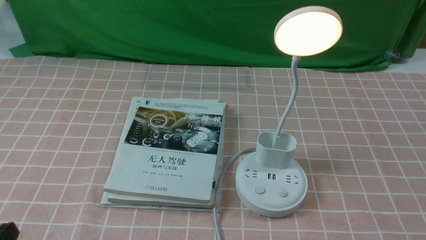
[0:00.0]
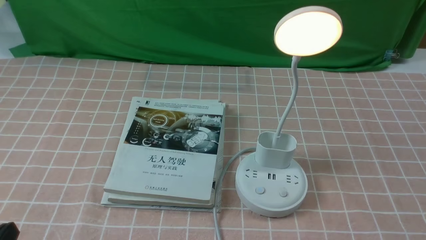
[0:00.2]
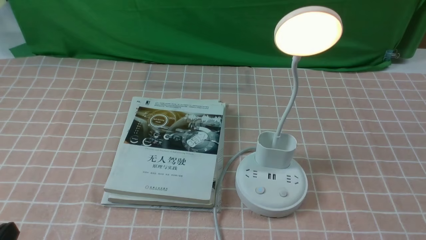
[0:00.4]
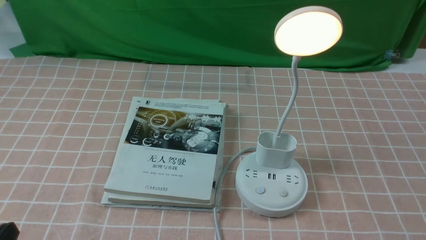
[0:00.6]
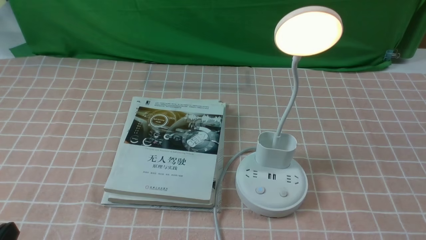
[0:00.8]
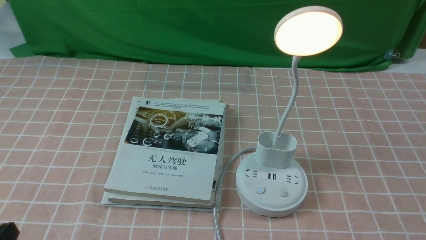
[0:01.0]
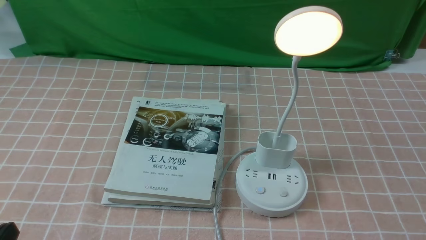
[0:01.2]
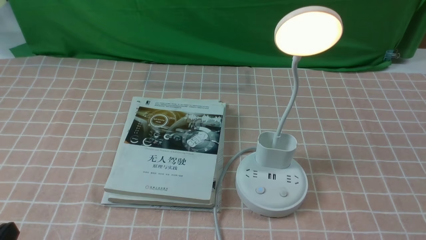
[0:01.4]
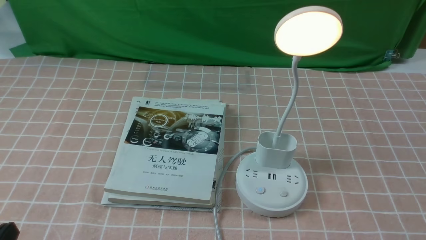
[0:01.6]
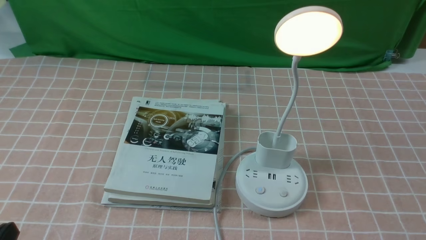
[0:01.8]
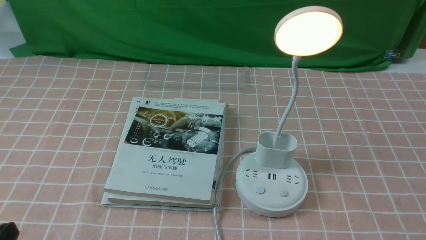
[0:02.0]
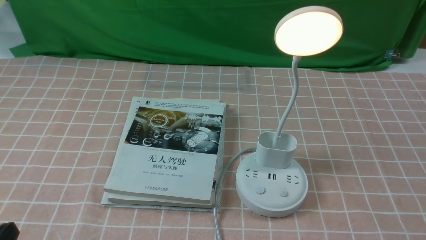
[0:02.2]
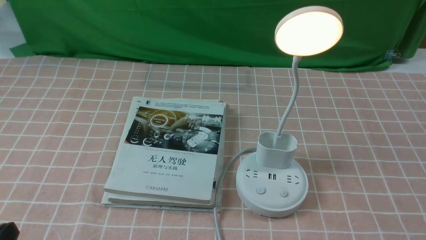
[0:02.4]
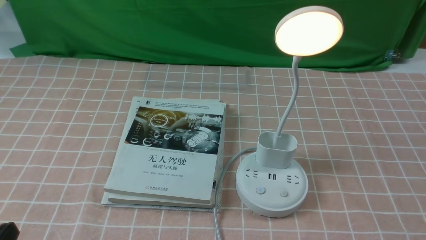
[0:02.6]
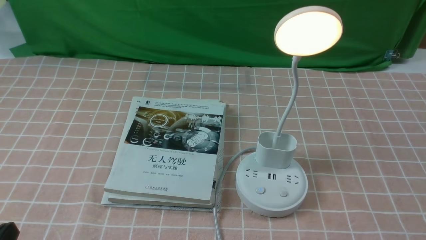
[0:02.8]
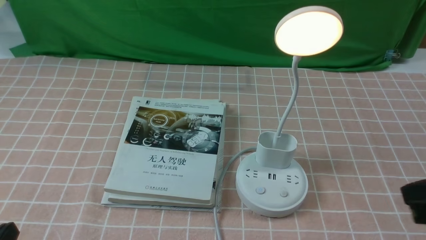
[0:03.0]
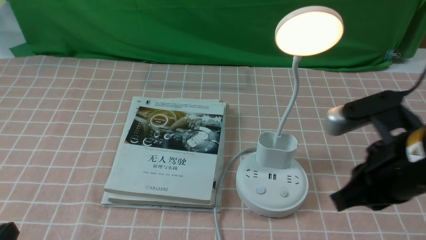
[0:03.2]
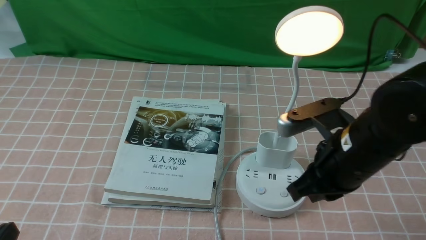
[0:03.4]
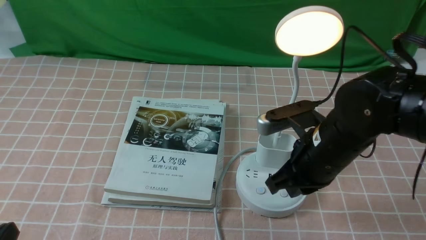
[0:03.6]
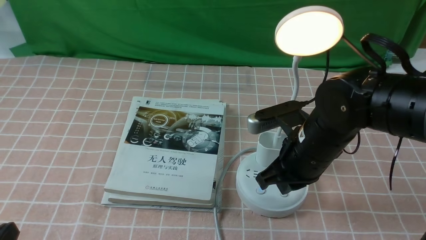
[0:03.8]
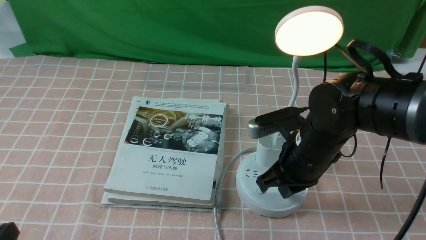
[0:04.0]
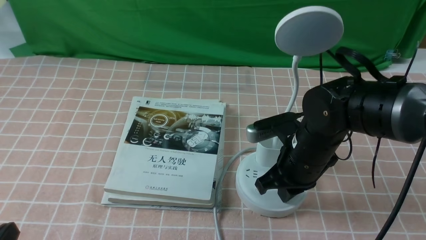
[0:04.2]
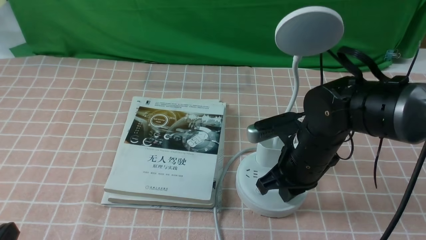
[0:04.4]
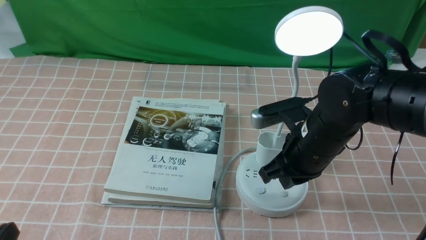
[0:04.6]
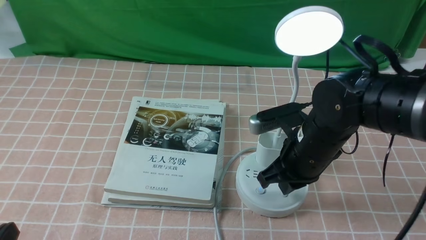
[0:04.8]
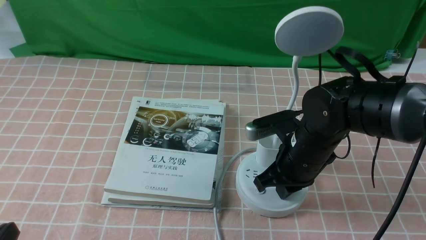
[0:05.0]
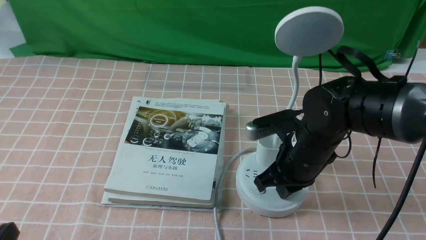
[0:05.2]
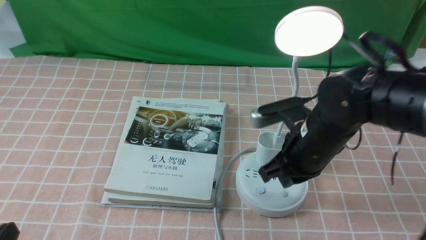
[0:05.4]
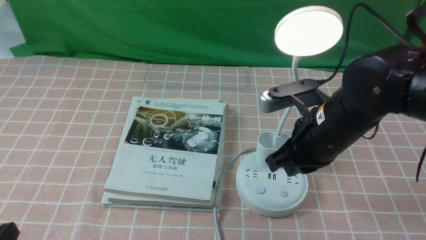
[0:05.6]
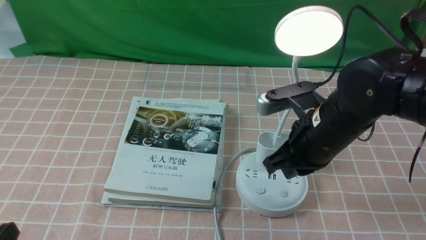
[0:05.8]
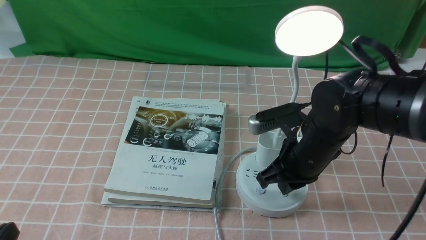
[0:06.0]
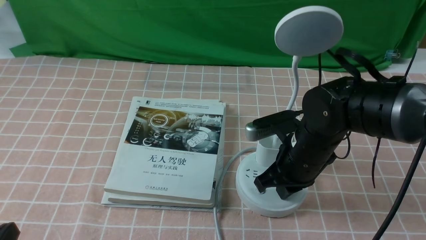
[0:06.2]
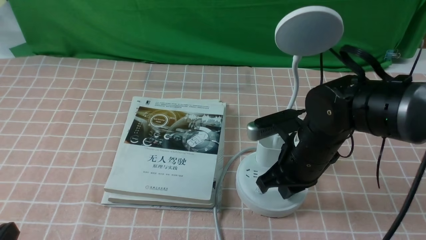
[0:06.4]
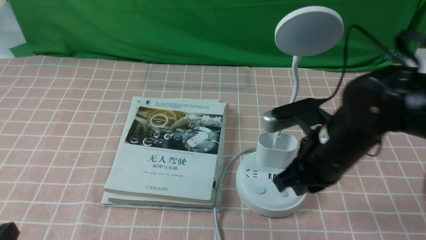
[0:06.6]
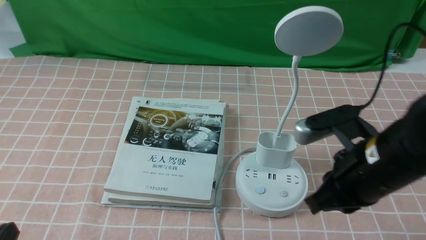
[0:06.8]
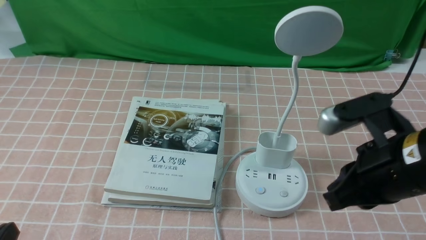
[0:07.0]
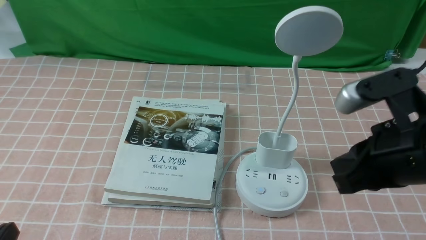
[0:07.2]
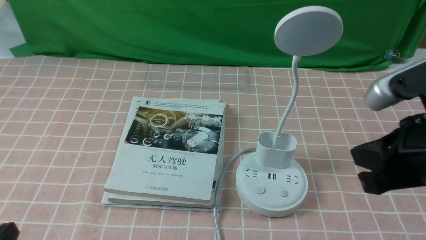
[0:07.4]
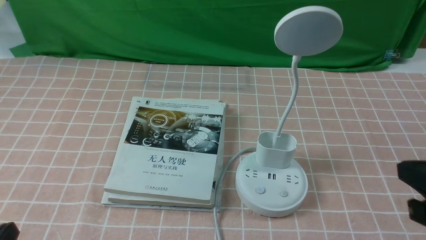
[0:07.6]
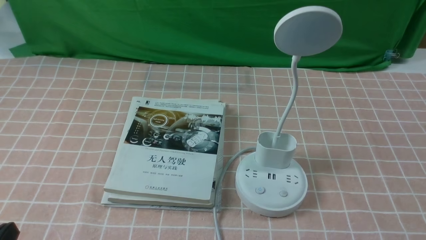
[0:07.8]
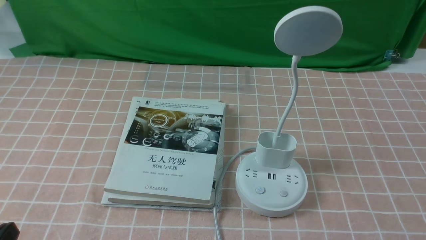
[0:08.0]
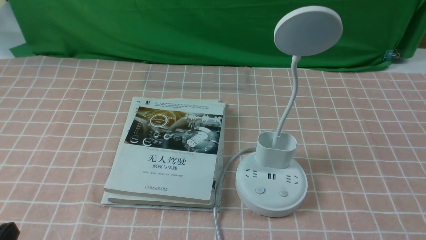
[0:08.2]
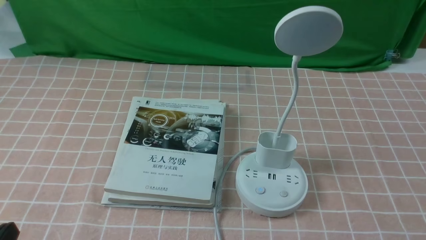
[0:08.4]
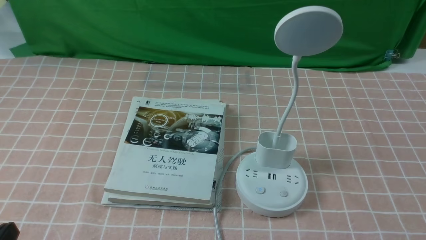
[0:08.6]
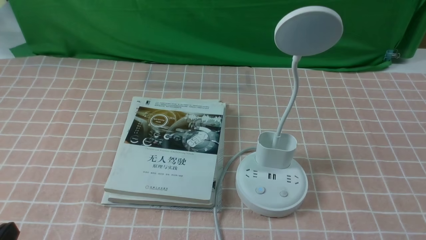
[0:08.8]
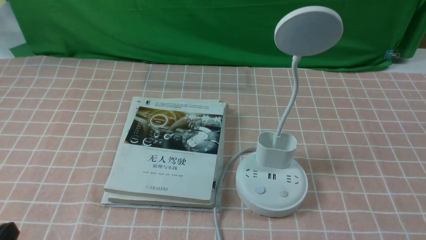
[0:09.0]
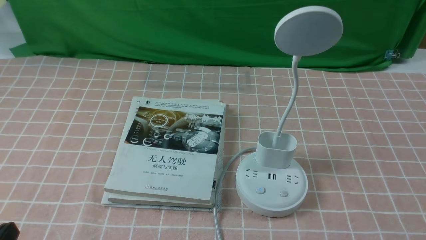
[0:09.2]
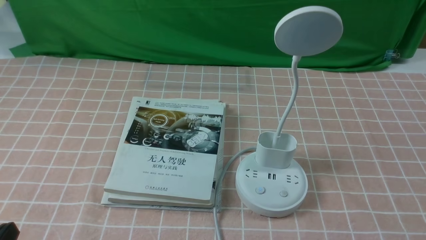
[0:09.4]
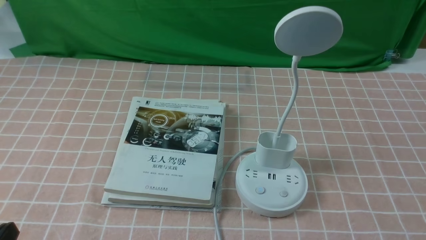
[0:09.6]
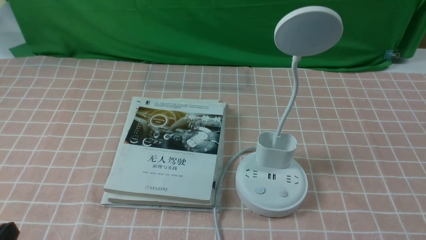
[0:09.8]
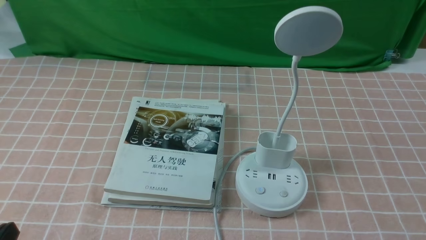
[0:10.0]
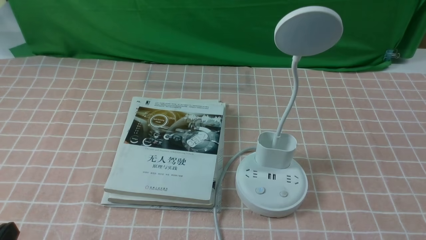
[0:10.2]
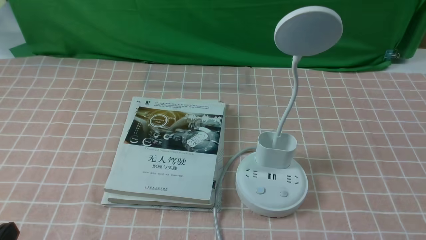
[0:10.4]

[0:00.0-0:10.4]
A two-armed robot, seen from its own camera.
Task of the whole recording: turn off the table lamp on the pink coffee tablecloth by hand.
Step, 0:00.0 to 0:06.4: use the right arm to press the button switch on the lamp holder.
0:00.0 to 0:01.4: The two grippers keep their place.
0:01.4 to 0:03.0: The right gripper heads upward, forward and to the left, covering approximately 20 cm, and closes.
0:03.0 to 0:04.4: The right gripper travels forward, downward and to the left by approximately 25 cm.
0:04.4 to 0:06.0: There are only small adjustments of the grippers.
0:06.0 to 0:07.4: The right gripper travels backward, upward and to the right by some 20 cm.
0:07.4 to 0:09.0: The right gripper is displaced downward, backward and to the right by roughly 20 cm.
